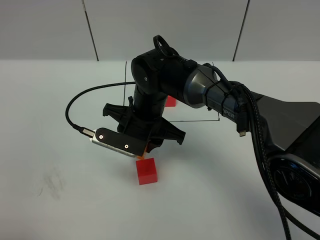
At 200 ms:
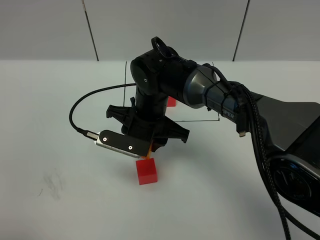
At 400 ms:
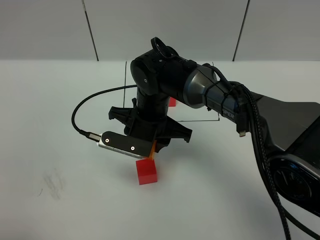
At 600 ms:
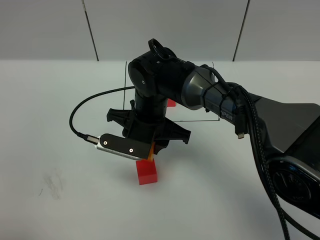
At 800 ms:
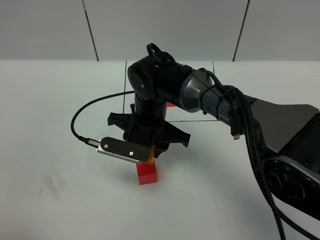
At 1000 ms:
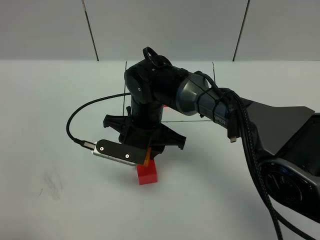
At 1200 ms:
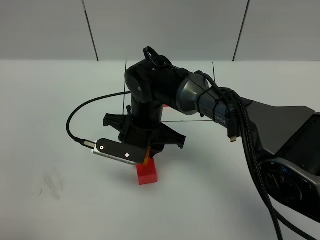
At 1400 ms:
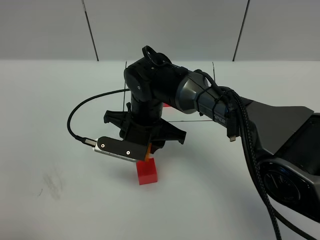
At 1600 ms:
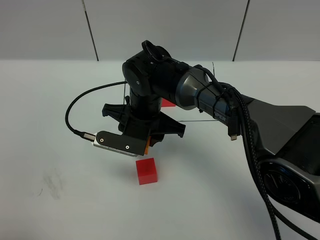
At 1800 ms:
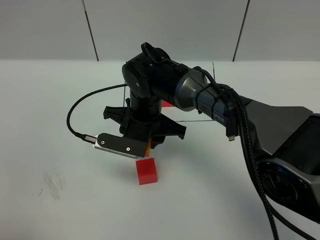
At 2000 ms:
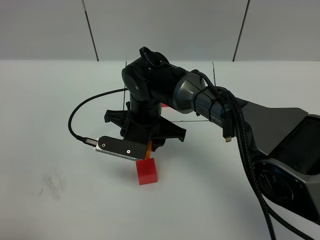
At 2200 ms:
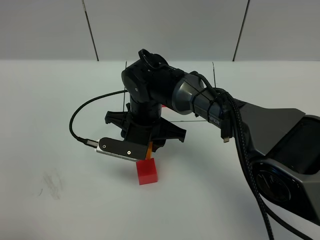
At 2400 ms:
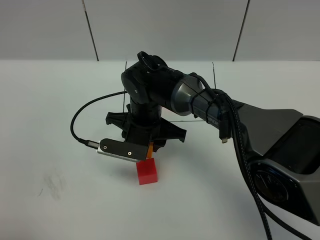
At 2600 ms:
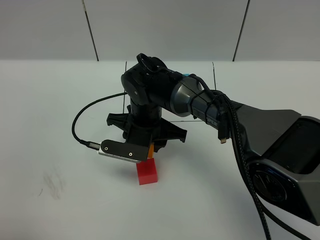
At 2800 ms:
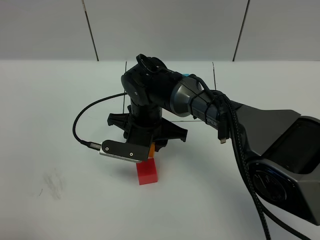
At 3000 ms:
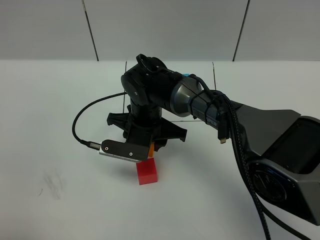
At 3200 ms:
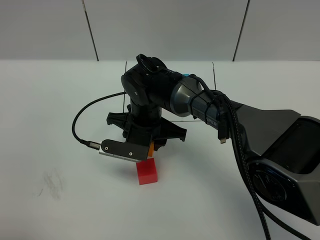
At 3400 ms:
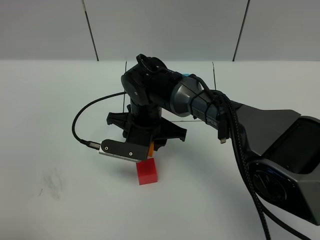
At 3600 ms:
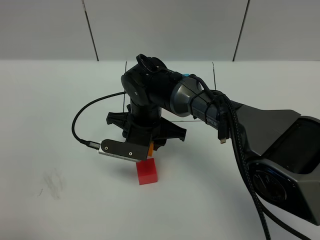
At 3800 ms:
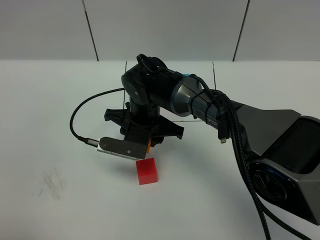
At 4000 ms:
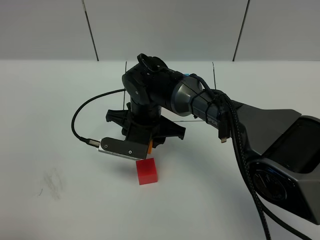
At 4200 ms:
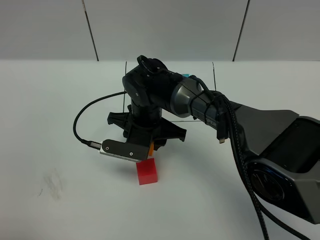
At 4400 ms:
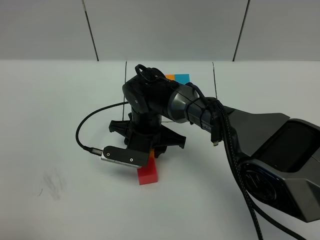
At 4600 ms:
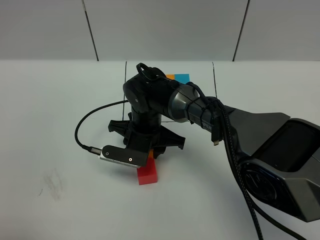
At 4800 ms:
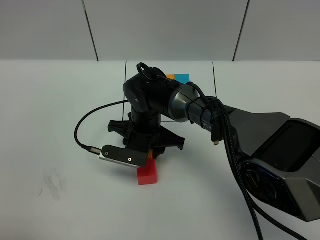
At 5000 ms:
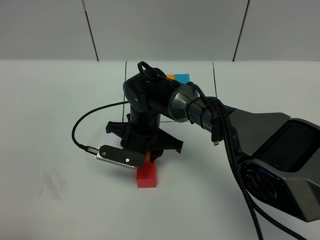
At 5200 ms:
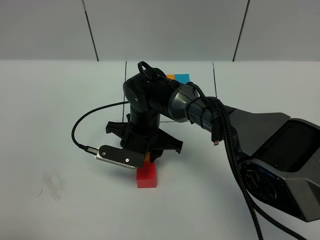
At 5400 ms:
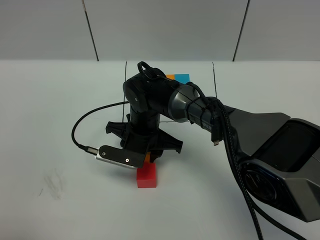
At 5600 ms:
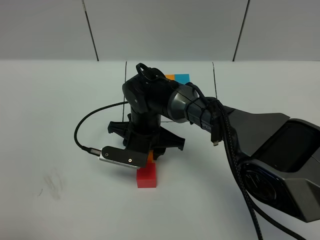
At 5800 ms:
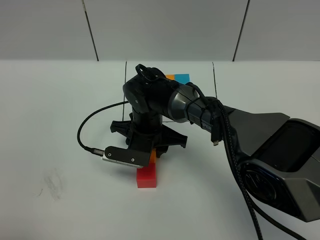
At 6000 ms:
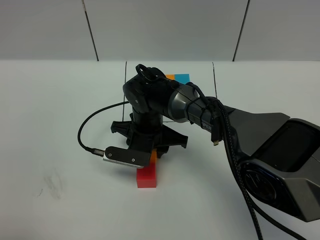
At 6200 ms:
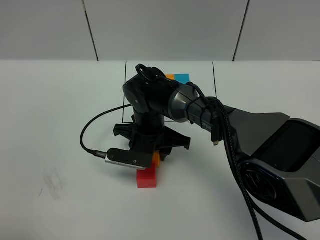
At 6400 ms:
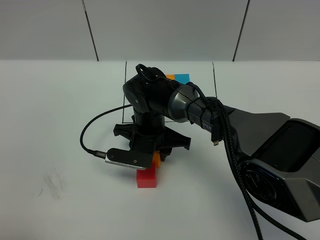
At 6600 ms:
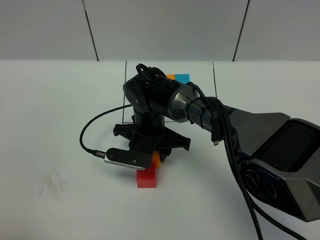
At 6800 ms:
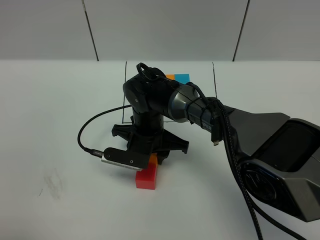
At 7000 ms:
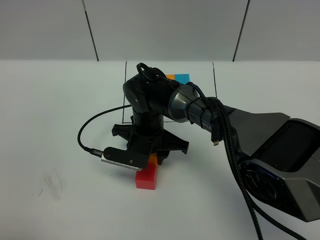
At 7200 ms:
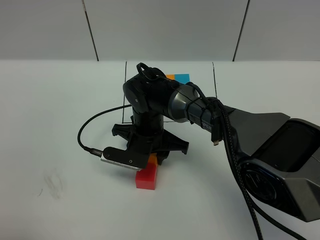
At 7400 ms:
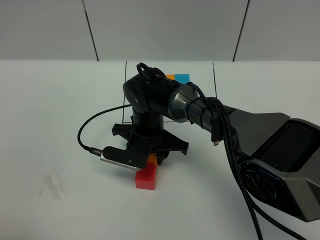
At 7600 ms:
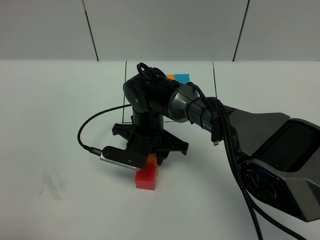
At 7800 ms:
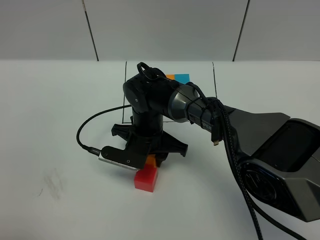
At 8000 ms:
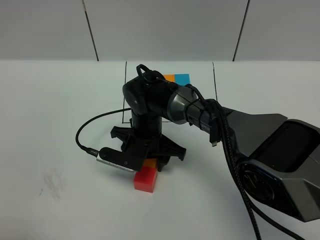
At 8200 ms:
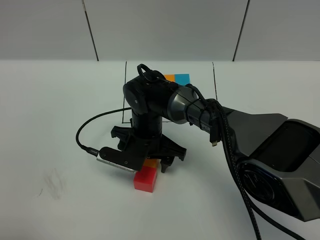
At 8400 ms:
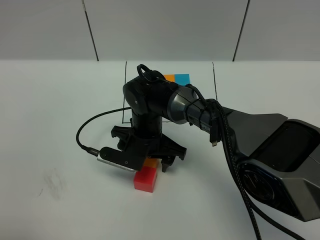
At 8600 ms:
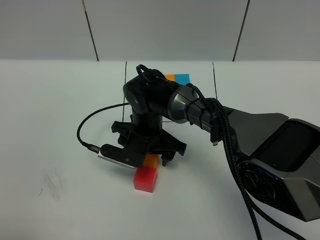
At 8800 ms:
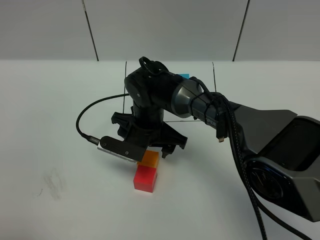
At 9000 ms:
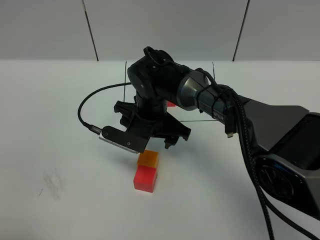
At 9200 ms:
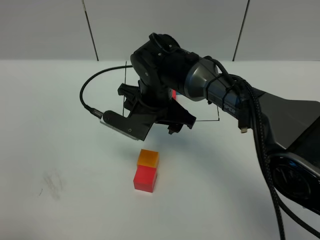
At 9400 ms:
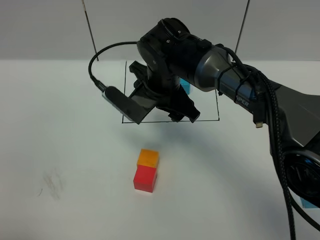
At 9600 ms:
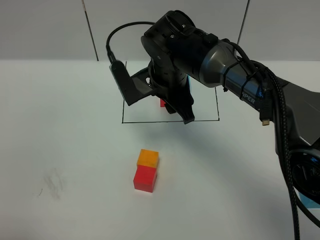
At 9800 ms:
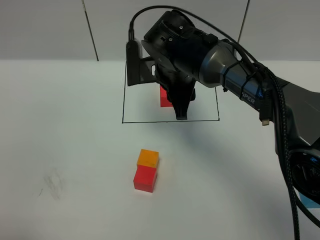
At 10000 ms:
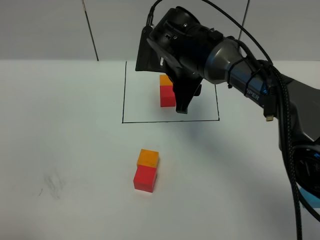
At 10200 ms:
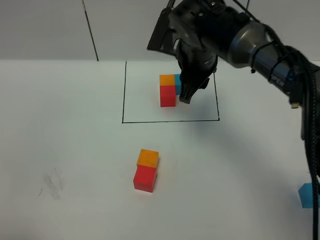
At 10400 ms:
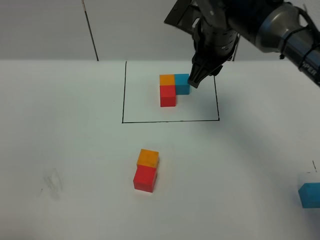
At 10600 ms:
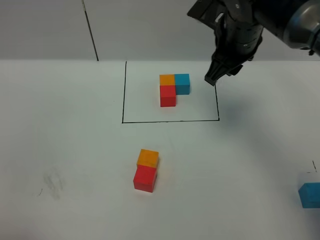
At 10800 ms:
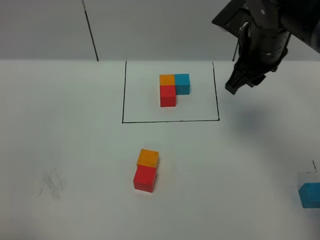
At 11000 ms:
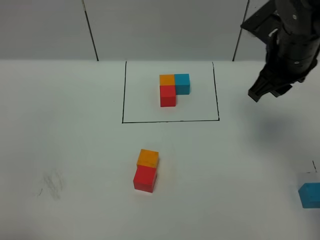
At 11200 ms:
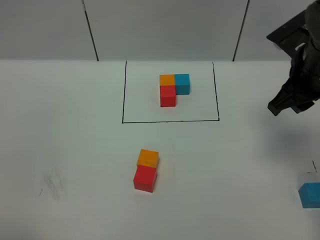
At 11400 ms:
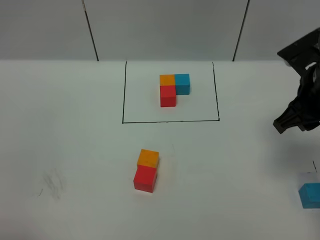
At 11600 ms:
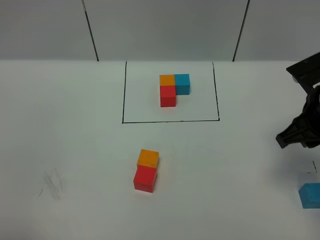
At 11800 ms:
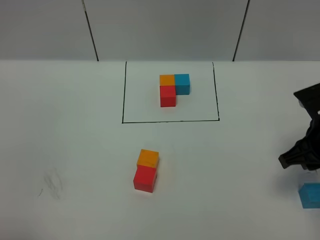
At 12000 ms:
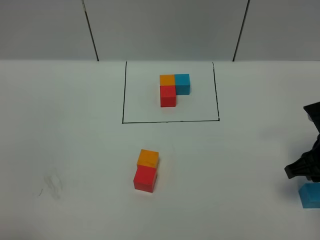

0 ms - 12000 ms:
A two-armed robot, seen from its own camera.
Task of the whole recording: According to the building block template in front, assemble the scattered blocks together.
Step, 0 ms - 9600 ms: Put the orange cube on the behind of the red cube.
0 ms - 4400 ms: The grippers stay close to where they were, moving slightly.
4400 ms - 6000 ms: Both grippers stay about where they are.
6000 ms - 7600 ms: The grippers make only small movements.
7600 ms - 9000 ms: The right gripper opens up.
9000 ms - 10400 ms: The right gripper moves upward and to the right, about 20 cm, and closes.
10400 ms - 12000 ms: The right gripper travels to the right, backward and downward by roughly 25 cm.

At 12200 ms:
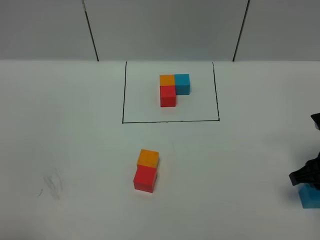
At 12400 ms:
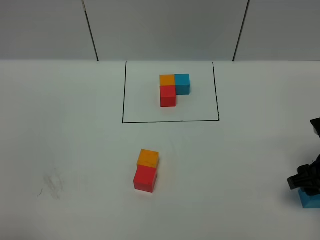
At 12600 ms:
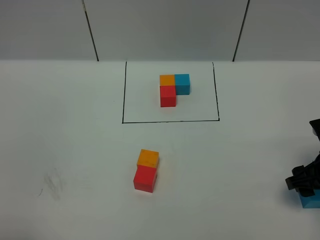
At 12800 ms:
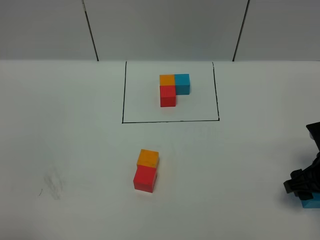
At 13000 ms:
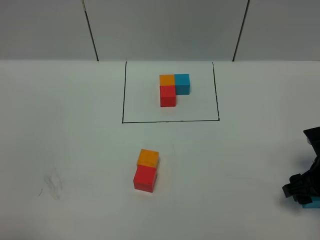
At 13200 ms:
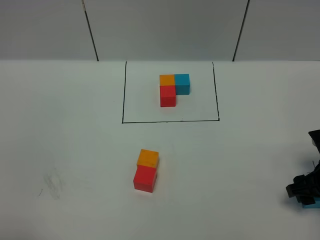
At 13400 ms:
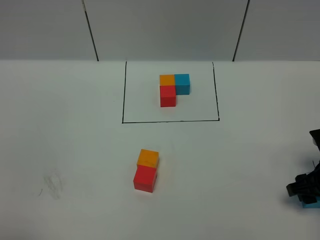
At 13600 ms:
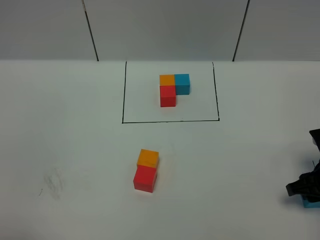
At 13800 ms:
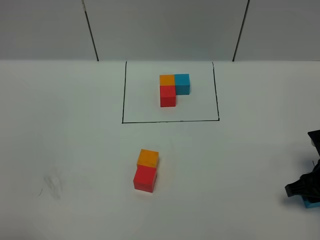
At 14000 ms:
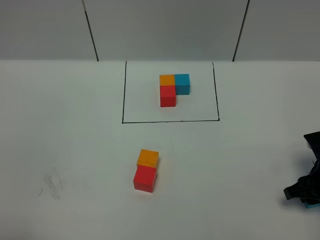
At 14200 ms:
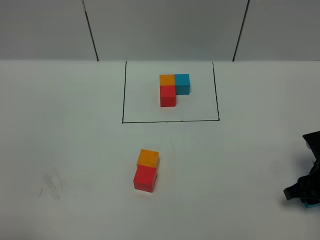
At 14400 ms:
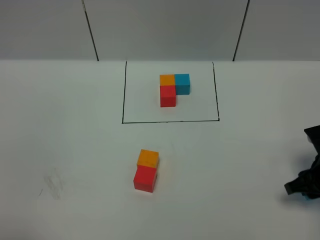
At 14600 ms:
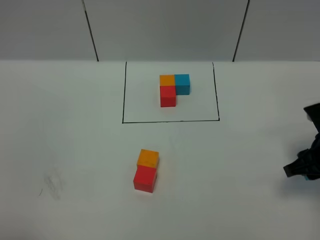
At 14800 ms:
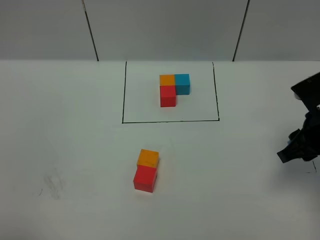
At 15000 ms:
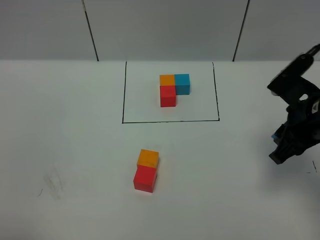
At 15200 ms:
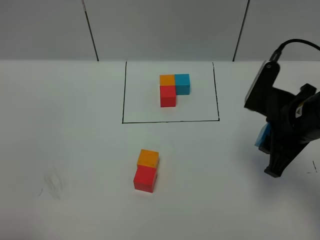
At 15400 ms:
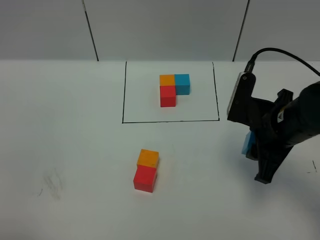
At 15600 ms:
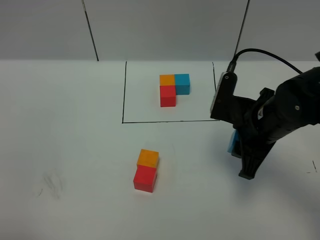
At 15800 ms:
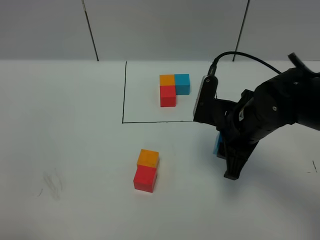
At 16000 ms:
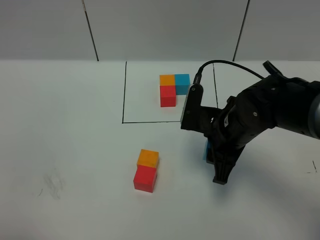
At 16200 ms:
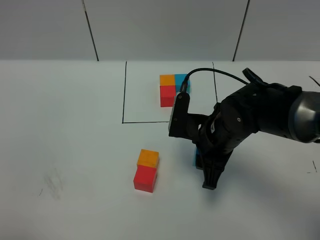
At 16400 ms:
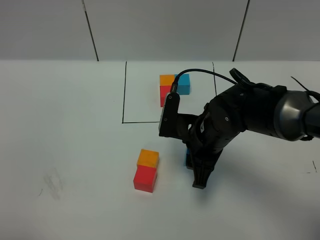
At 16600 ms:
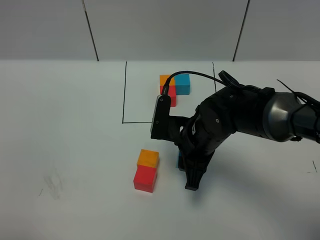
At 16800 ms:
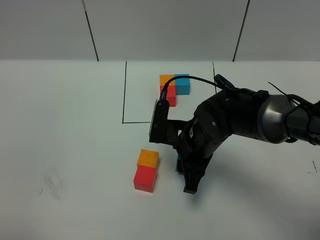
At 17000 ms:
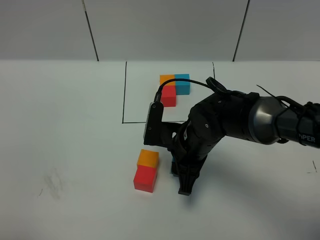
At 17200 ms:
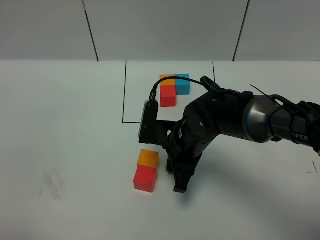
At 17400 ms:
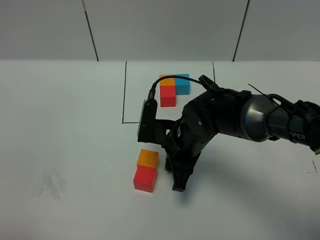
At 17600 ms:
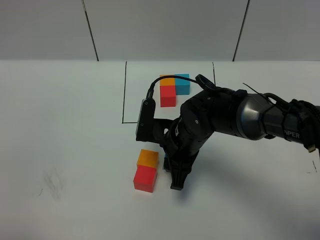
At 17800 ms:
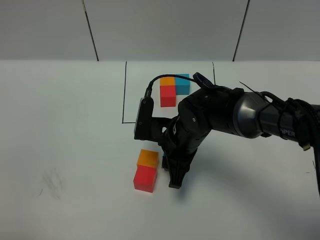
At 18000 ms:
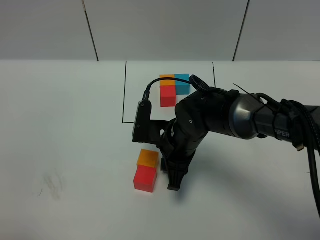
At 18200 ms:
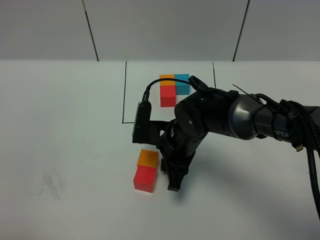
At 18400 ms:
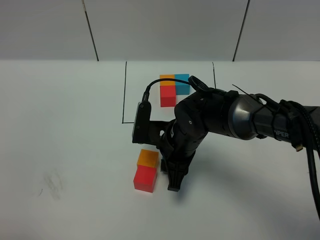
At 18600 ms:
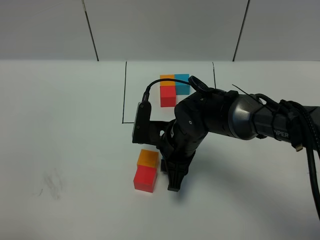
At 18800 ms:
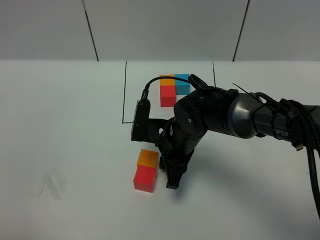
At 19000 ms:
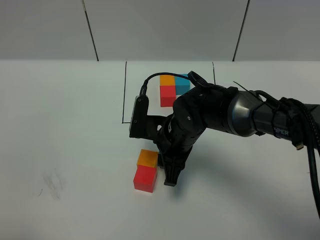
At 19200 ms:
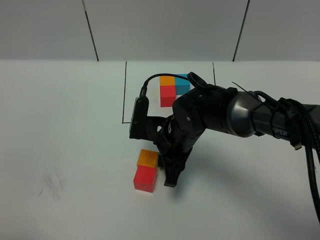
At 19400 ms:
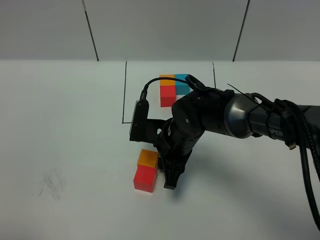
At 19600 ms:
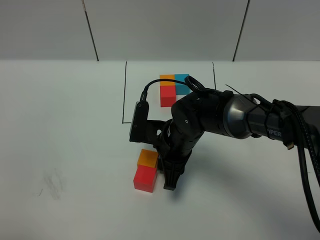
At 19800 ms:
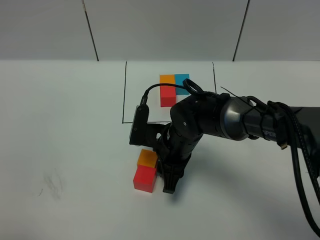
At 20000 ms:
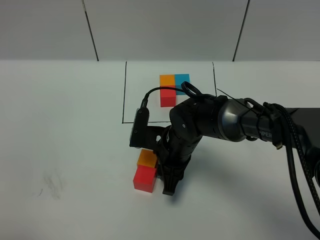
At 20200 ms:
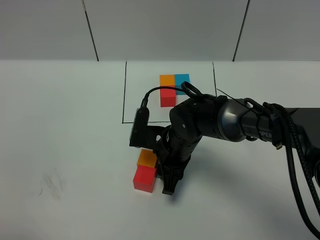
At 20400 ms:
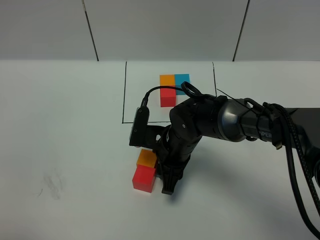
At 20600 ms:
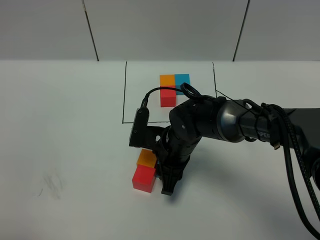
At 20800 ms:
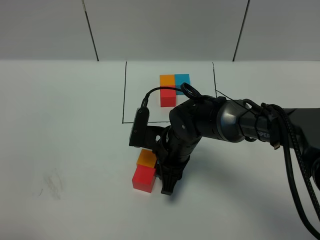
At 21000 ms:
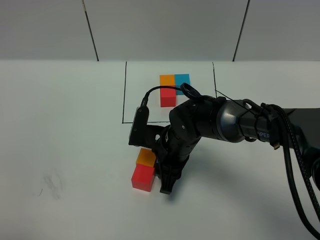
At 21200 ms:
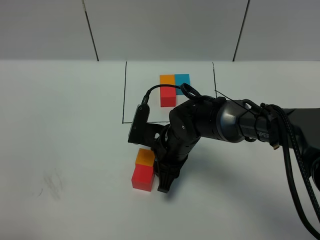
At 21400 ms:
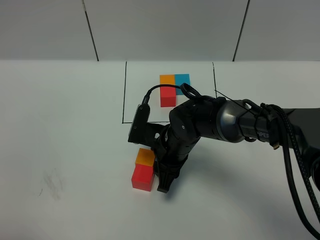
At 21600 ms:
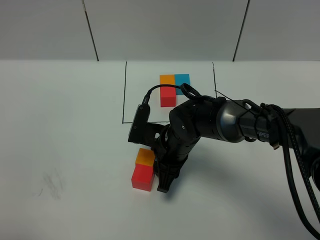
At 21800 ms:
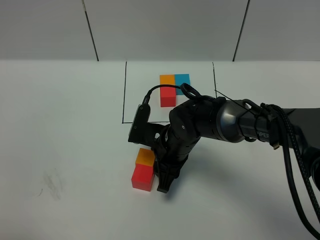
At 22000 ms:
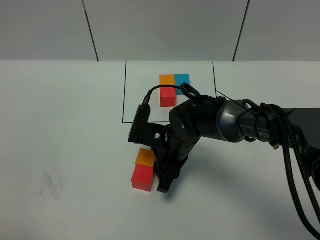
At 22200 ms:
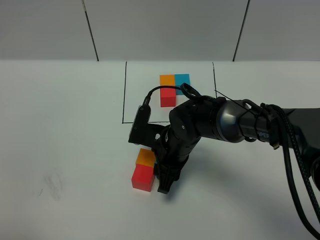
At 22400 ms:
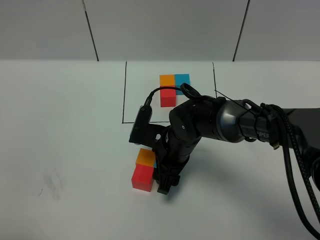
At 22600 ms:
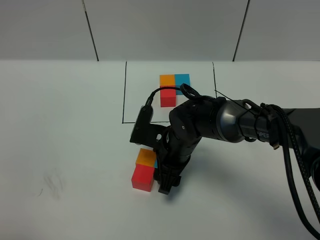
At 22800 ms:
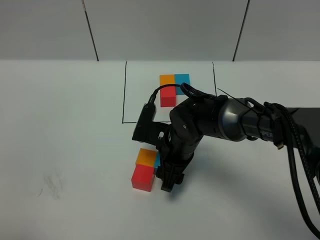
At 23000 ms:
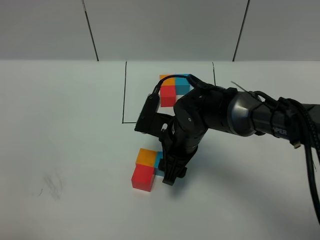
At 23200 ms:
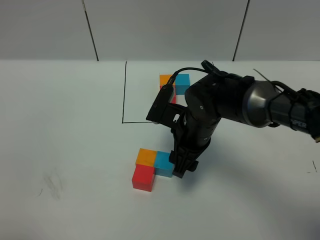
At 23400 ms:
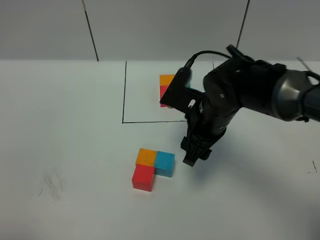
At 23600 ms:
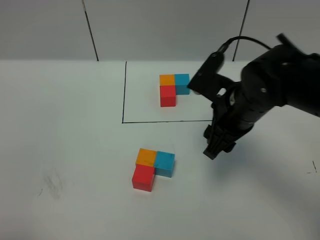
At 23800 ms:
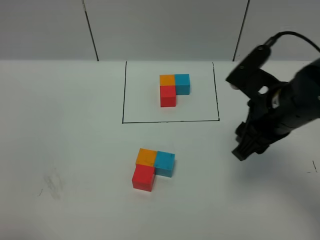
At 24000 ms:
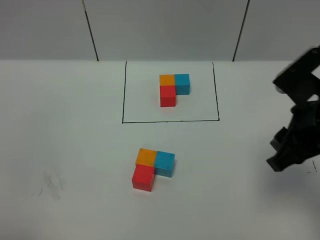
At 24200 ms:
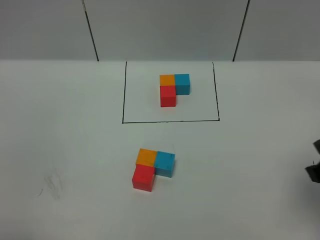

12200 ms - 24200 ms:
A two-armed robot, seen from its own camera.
Task of the whole recording: According to the building block template in front, assemble the scattered blocks together.
Step, 12200 ms - 23400 ms: Put the blue cube on the right of the orange cube.
12200 ms - 13800 ms: The right gripper moves some 5 cm, and opens and closes again.
13800 ms - 15200 ms: The right gripper travels upward and to the left by some 15 cm.
15200 ms - 16600 ms: The right gripper goes approximately 15 cm to the left and downward.
16600 ms - 19800 ms: The grippers make only small movements.
19800 ms - 21200 ms: Neither gripper changes place.
21200 ms - 22600 ms: Both grippers stay about where they are.
22600 ms - 24200 ms: The right gripper shifts some 35 cm to the right, upward and backward, and closes.
